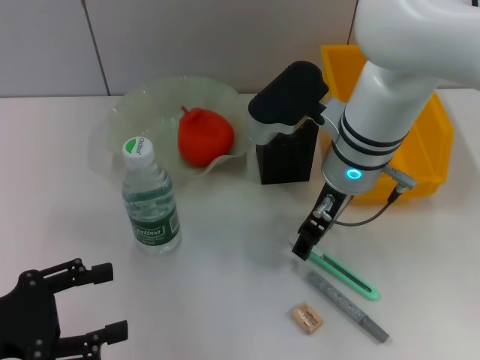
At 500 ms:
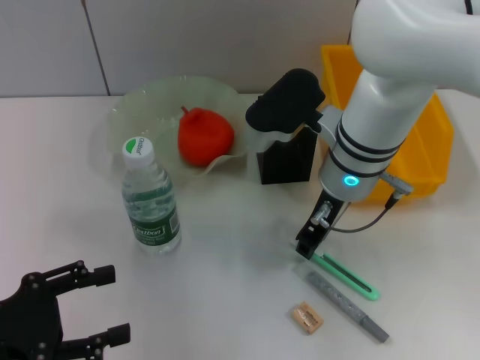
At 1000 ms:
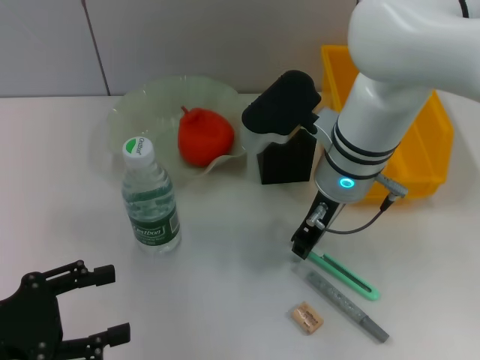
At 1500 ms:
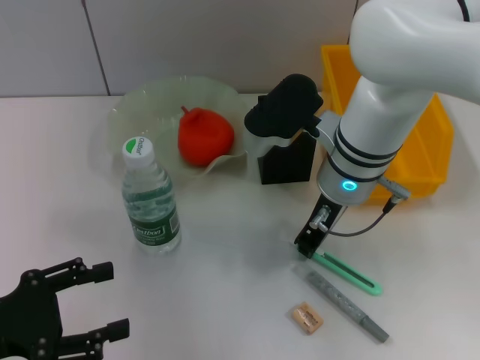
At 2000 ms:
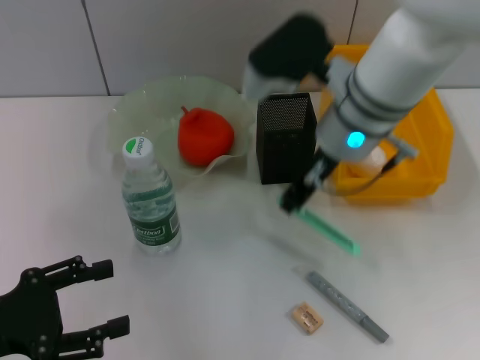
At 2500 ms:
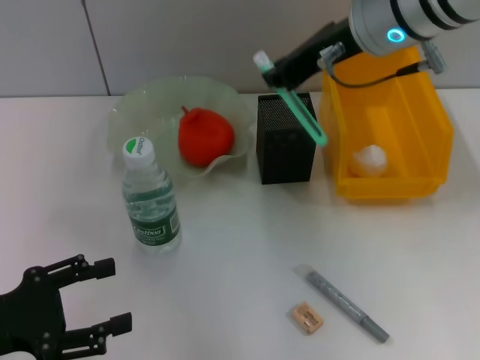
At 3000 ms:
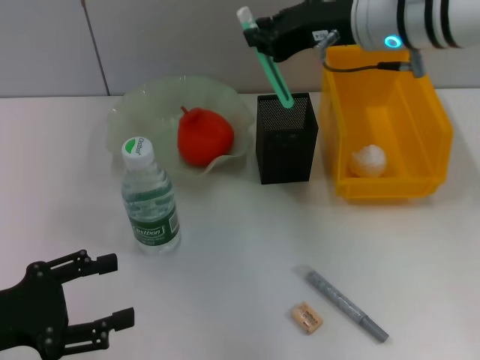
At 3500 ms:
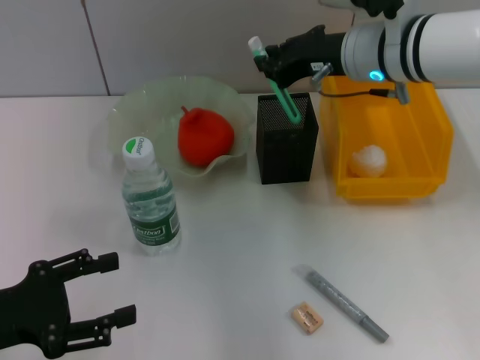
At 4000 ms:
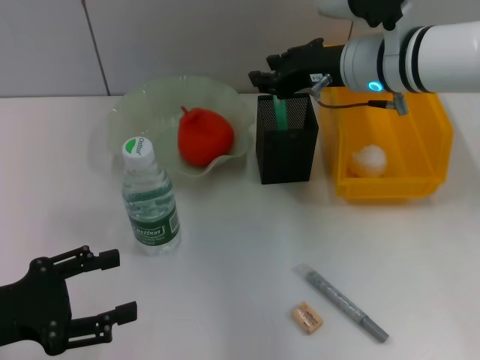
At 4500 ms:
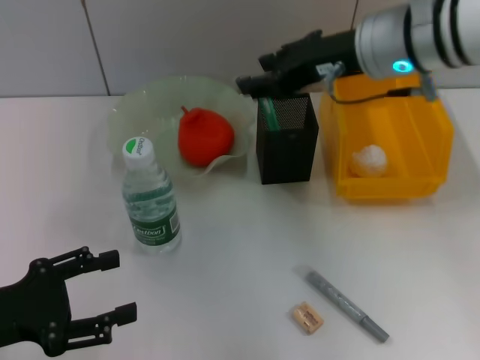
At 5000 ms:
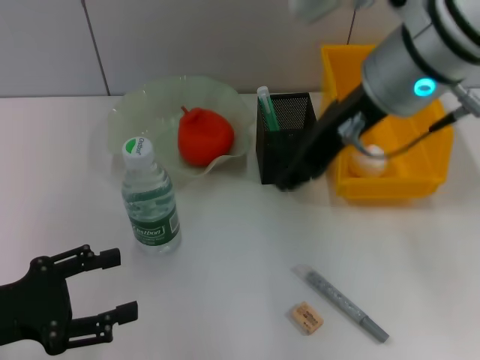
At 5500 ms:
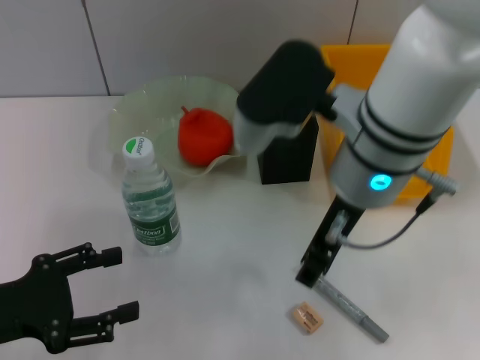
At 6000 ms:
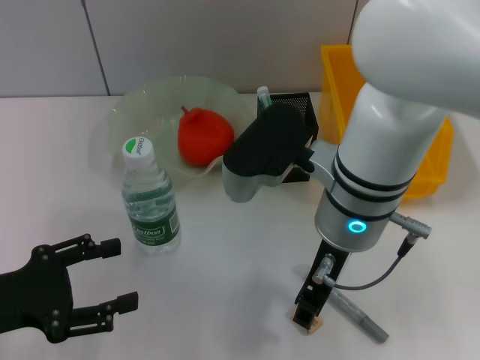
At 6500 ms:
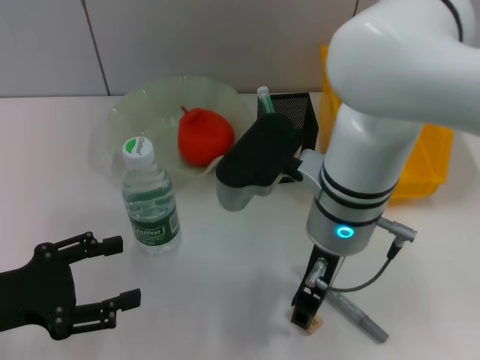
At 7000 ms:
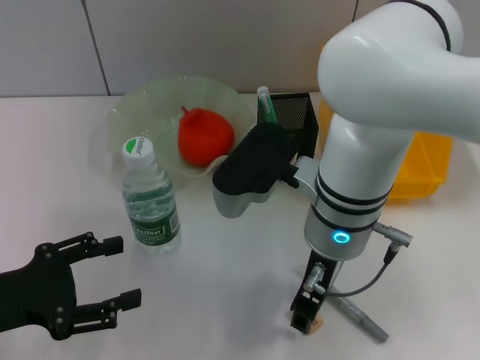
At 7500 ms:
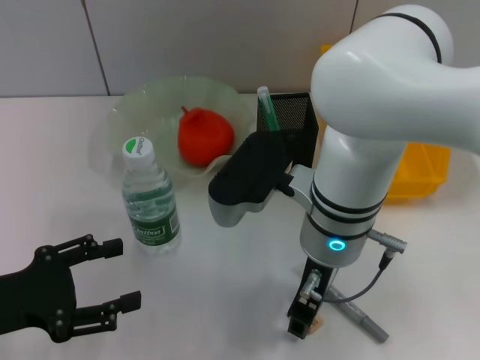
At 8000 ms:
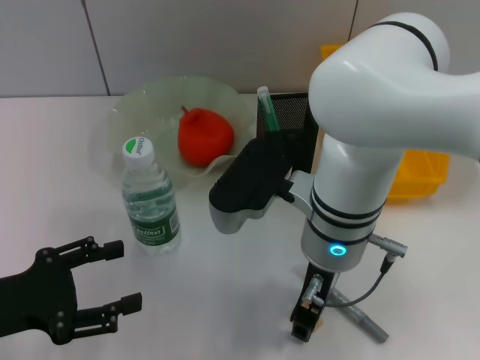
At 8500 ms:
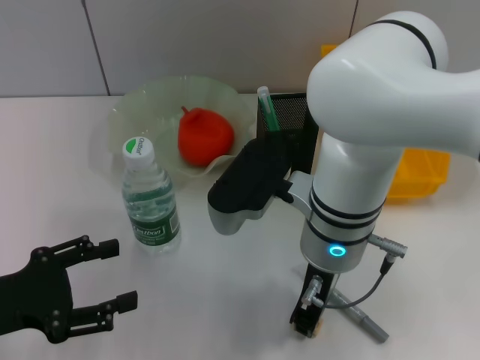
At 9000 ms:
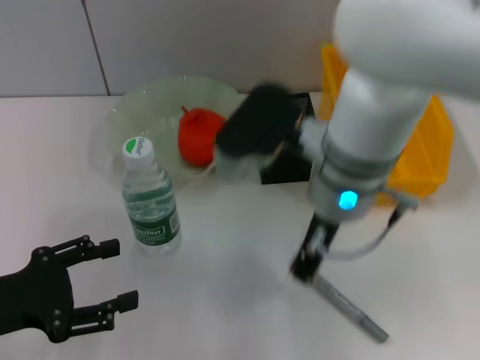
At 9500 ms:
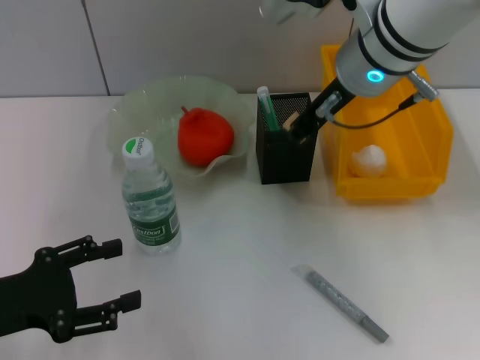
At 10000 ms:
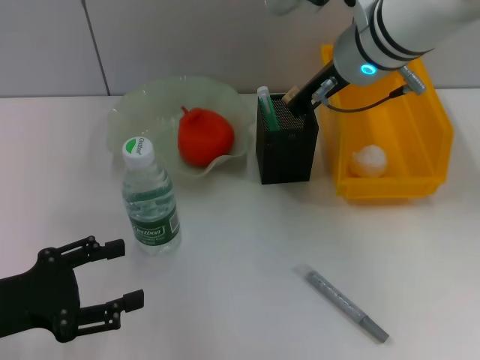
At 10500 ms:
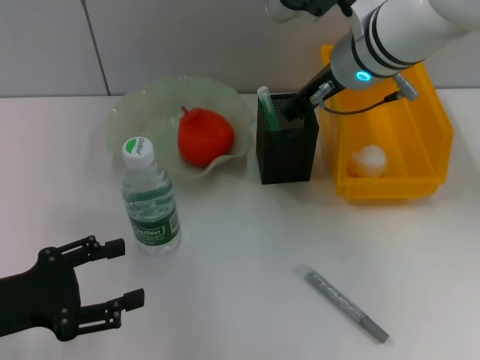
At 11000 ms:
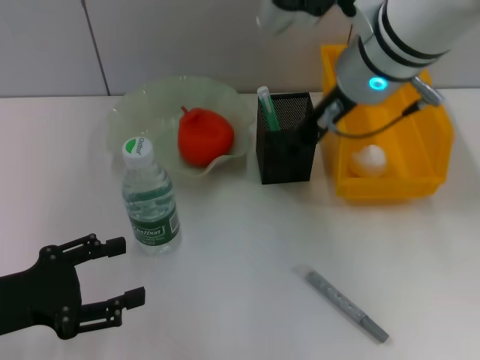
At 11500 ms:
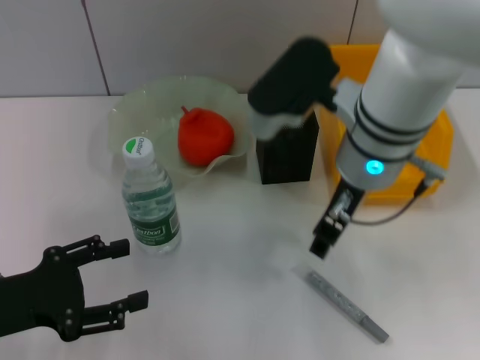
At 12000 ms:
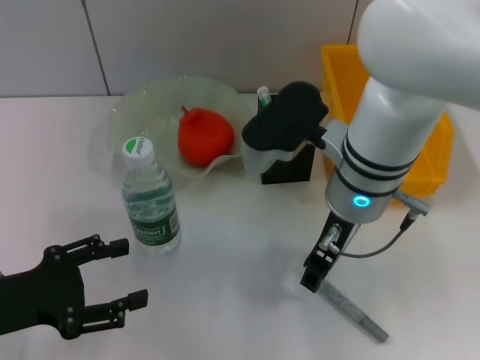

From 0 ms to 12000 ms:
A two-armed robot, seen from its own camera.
Step, from 2000 ms to 4000 ms: Place the blue utility knife into the pen holder with the right hand.
Step, from 4500 ms to 8000 ms: Grab the eraser with the right hand.
Step, from 8500 ms to 10500 ms: Put the eraser into the pen holder with the right hand.
From 0 ms to 2000 ms: The right gripper closes its fingers.
From 2000 ms to 4000 ms: The right gripper shifts approximately 5 cm to the right, and travels upward and back again, approximately 10 cm each way.
From 4000 ms to 6000 ms: The right gripper goes some 15 cm backward and to the left, and opens.
From 8000 ms to 10000 ms: The right gripper goes about 15 cm forward and upward.
From 10000 ms to 12000 ms: The right gripper shifts some 10 cm backward and downward, and opens up.

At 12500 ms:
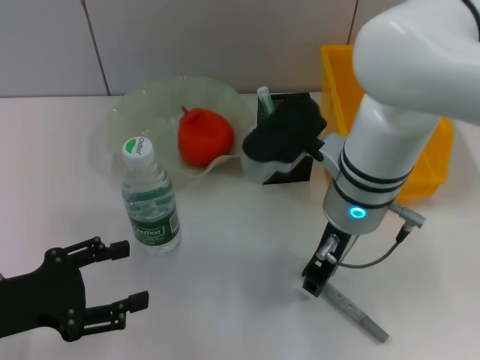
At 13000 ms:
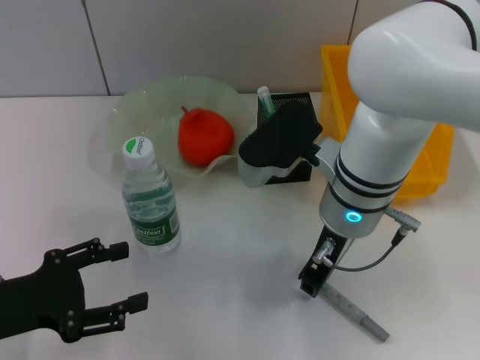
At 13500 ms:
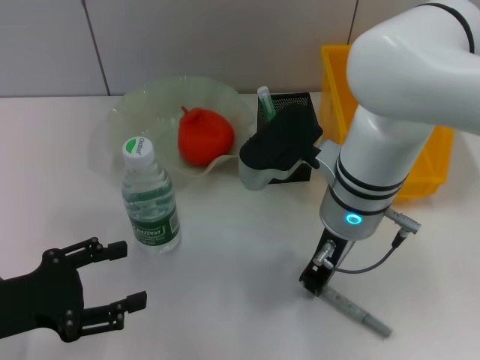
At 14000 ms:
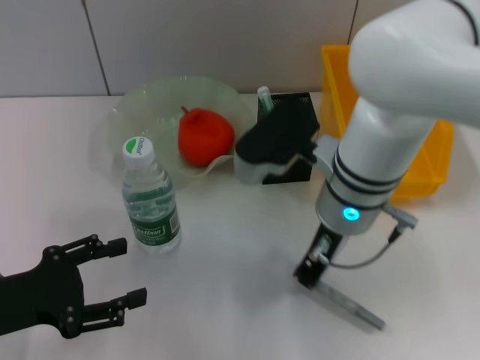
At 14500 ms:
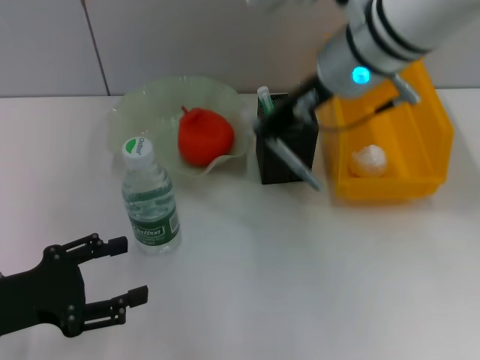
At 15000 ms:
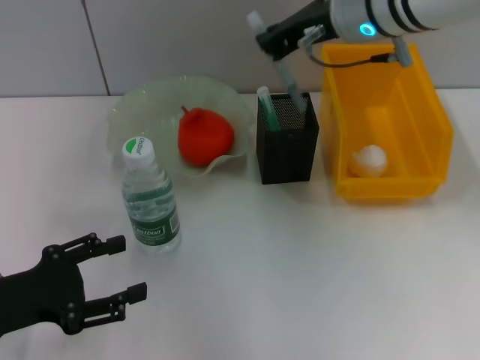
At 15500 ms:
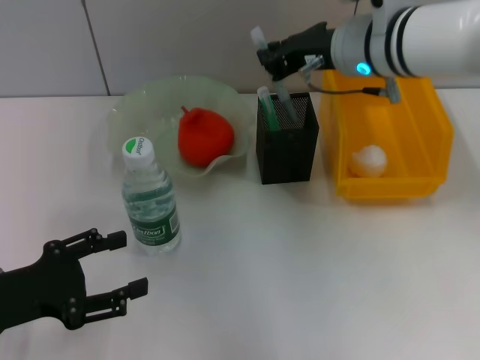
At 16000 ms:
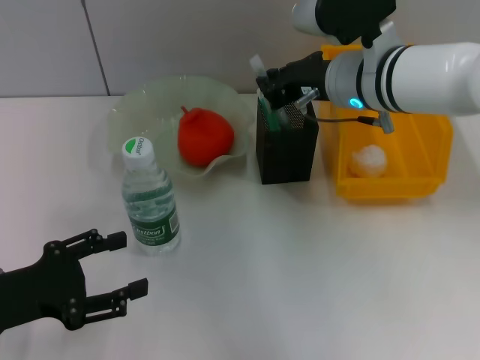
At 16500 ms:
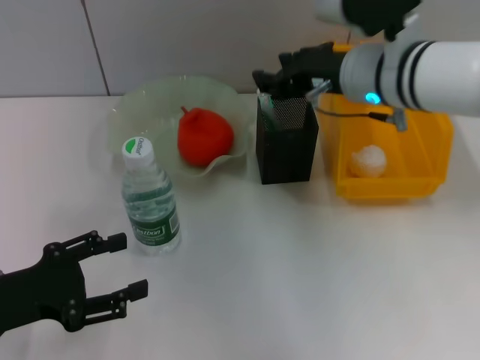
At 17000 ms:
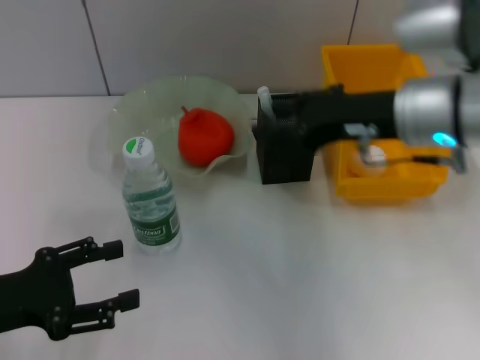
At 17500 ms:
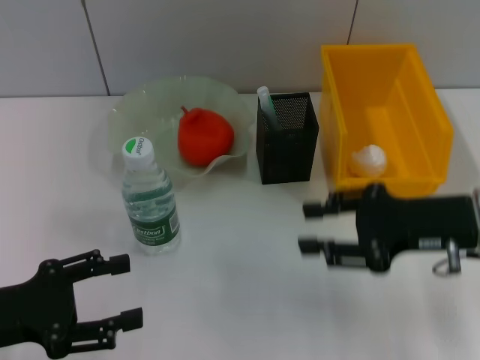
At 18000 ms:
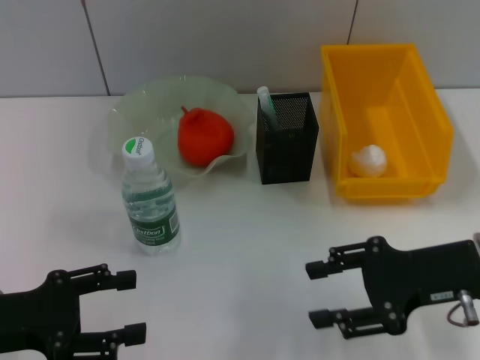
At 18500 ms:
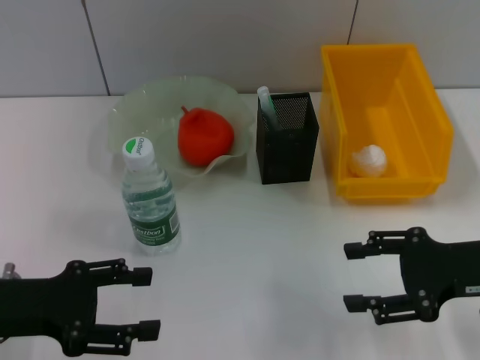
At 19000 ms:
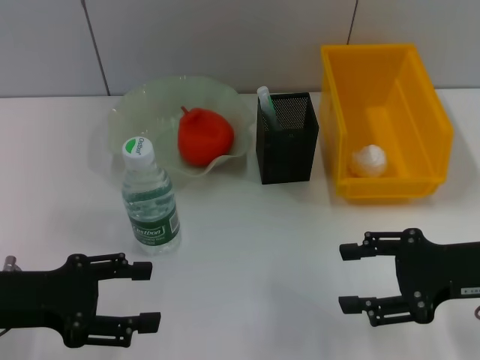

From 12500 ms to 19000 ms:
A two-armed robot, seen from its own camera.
Step, from 14000 ms to 16000 ms: Place the gray glue into the pen holder with the right hand.
From 12500 ms to 14500 ms: The right gripper travels upward and forward by some 10 cm, and closes its fingers.
From 14500 ms to 17000 ms: The right gripper shifts about 10 cm to the right and downward, and opens up.
From 17000 ms to 19000 ms: The right gripper goes approximately 15 cm to the right, downward and backward, and opens up.

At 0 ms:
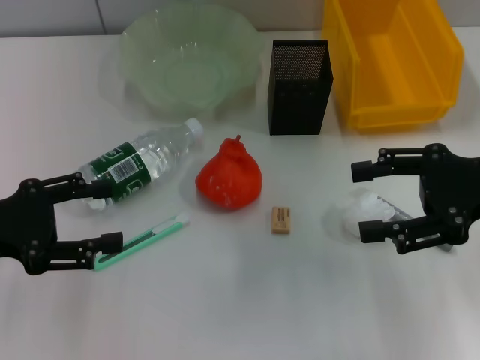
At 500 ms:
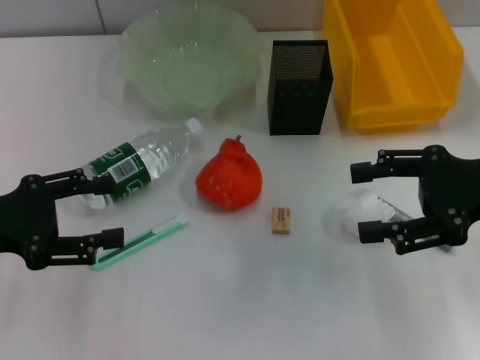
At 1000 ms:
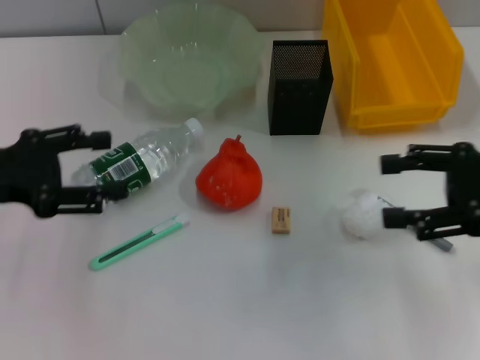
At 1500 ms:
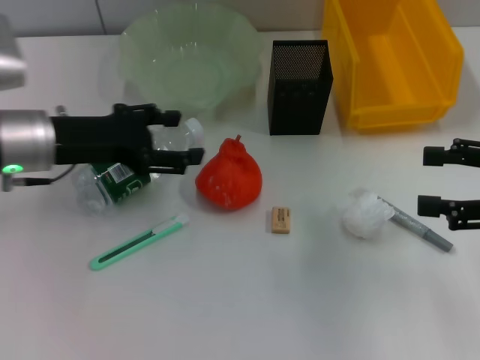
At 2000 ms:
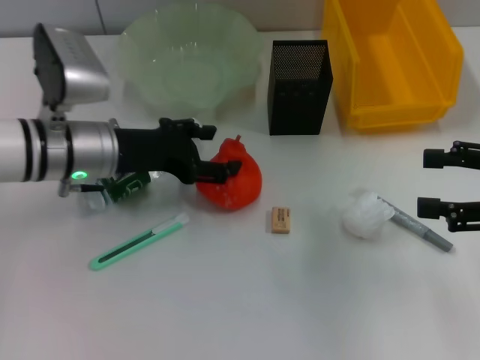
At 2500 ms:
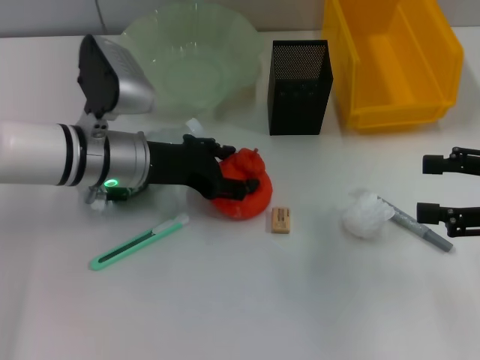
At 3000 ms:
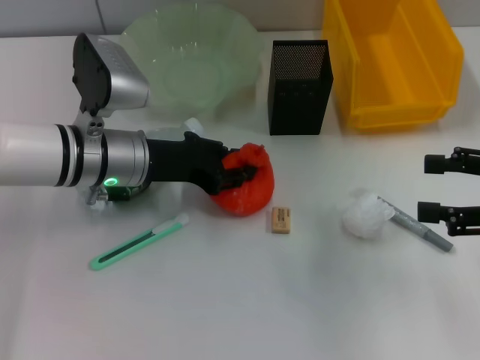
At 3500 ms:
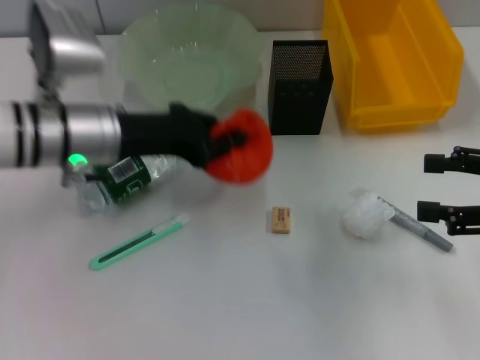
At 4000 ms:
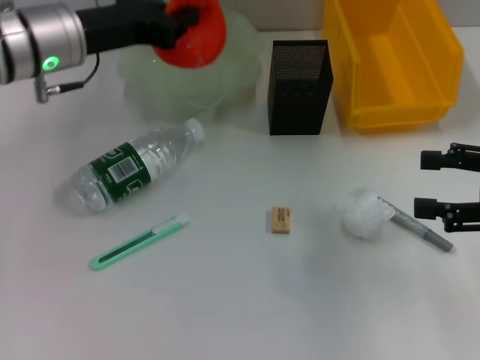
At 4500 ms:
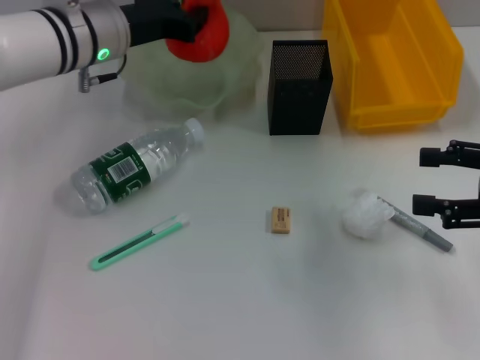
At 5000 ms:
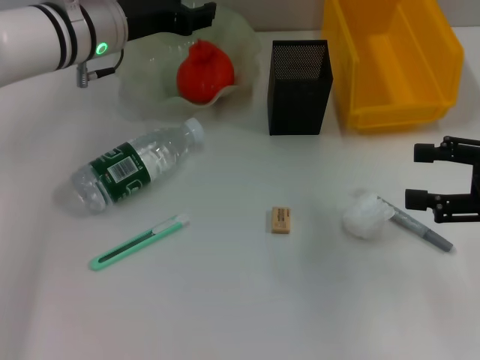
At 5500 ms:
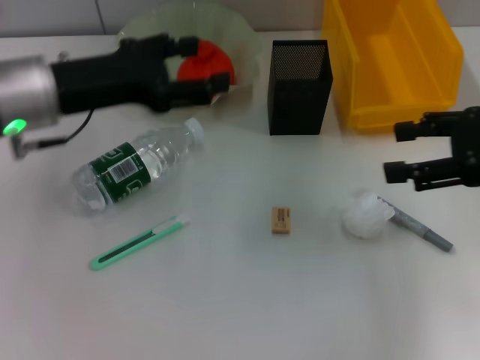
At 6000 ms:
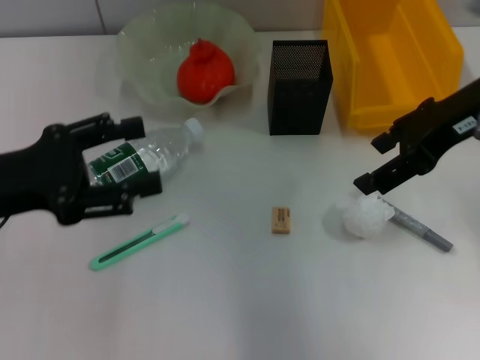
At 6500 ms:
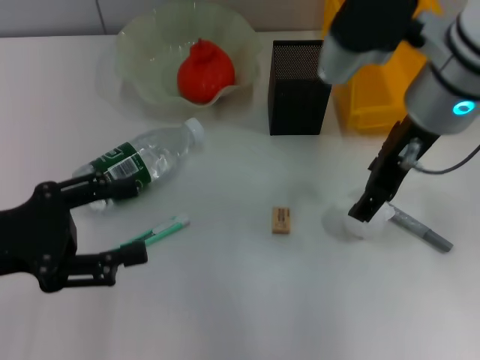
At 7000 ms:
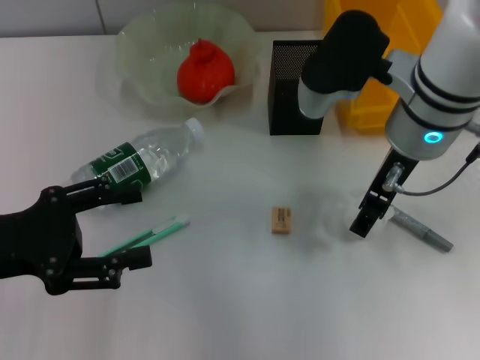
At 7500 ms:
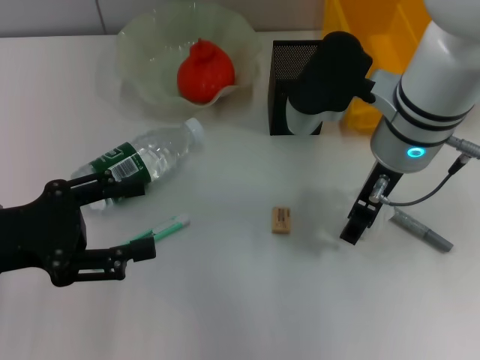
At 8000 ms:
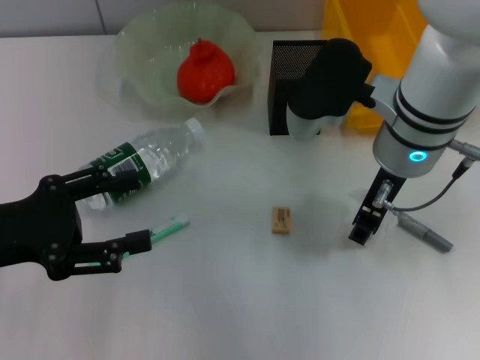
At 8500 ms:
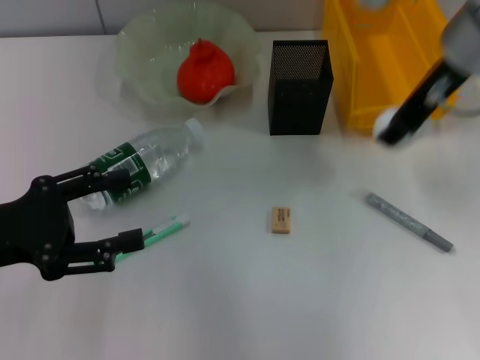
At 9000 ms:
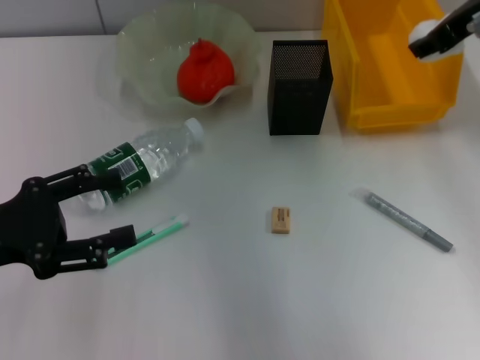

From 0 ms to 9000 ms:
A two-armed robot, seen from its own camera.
Step, from 0 ms to 3000 ms: Grab the orange with the left hand.
Step, from 3500 ms to 5000 ms: Place the orange into the fruit bowl with the left hand.
Step, from 5500 ms to 7500 ms: Grab the paper ball with the right hand.
From 0 ms to 2000 ms: The right gripper moves to the right, roughly 5 cm; the left gripper heads to the right and forward, covering roughly 15 cm.
From 2000 ms to 4500 ms: The left gripper heads forward and upward, covering some 10 cm, and closes its fingers.
From 4500 ms to 7000 ms: The right gripper moves to the left and forward, some 20 cm. Meanwhile the left gripper is displaced backward and to the left by some 25 cm, and opens up.
From 7000 ms to 9000 ms: The right gripper shifts about 15 cm to the right, upward and forward, and closes.
